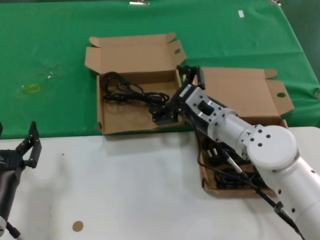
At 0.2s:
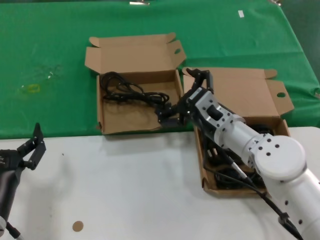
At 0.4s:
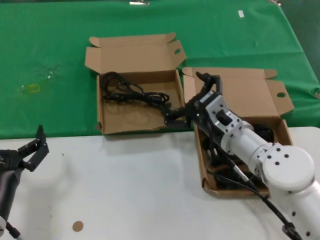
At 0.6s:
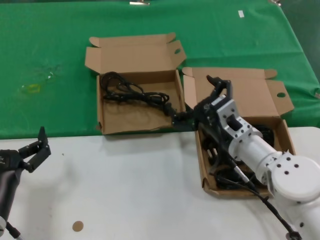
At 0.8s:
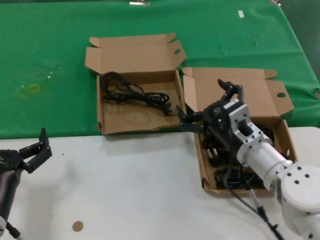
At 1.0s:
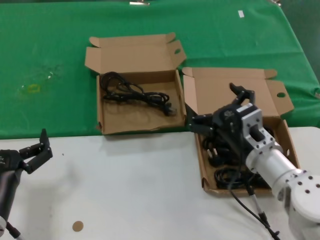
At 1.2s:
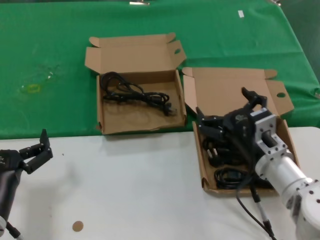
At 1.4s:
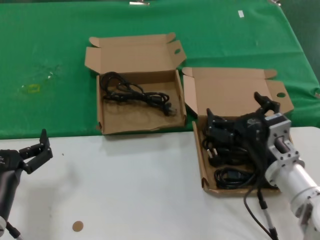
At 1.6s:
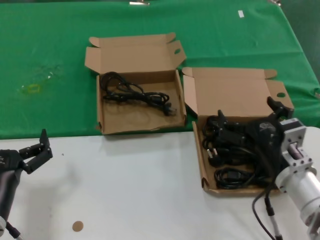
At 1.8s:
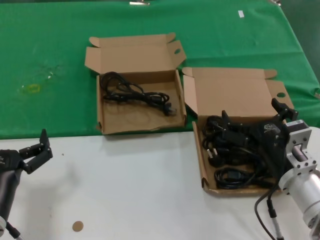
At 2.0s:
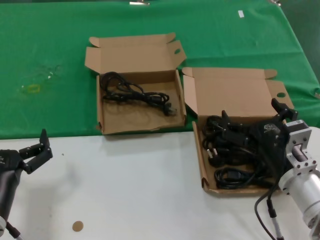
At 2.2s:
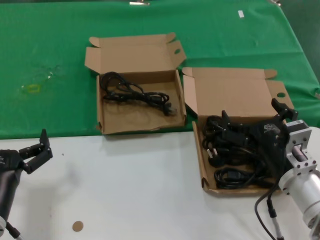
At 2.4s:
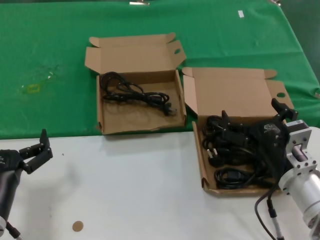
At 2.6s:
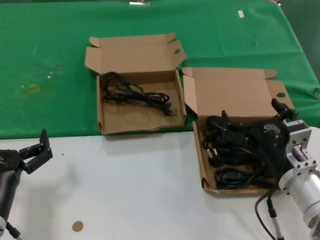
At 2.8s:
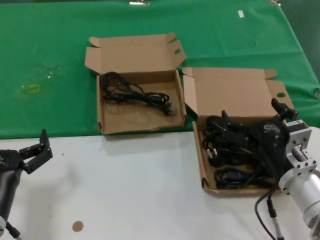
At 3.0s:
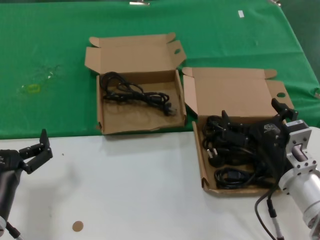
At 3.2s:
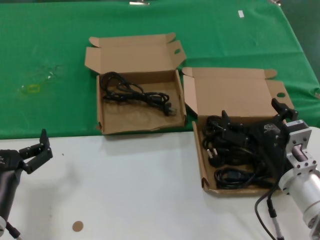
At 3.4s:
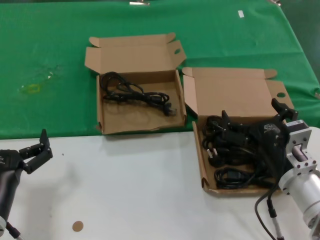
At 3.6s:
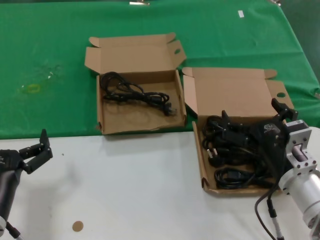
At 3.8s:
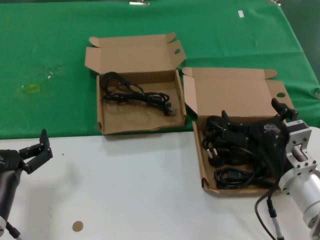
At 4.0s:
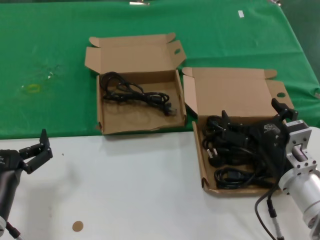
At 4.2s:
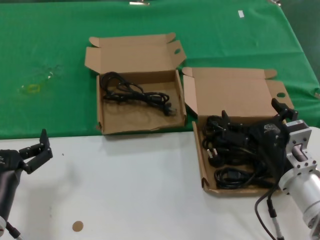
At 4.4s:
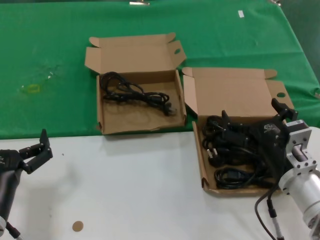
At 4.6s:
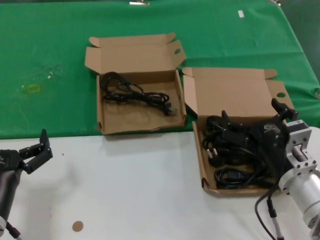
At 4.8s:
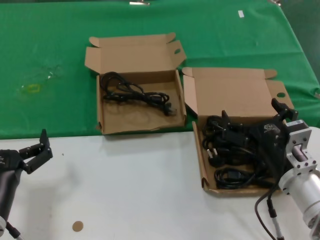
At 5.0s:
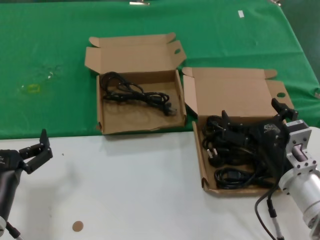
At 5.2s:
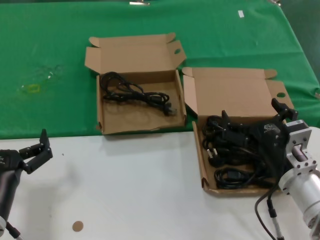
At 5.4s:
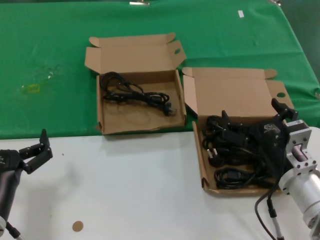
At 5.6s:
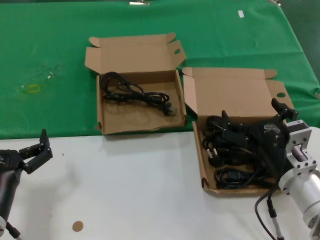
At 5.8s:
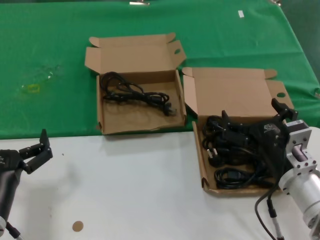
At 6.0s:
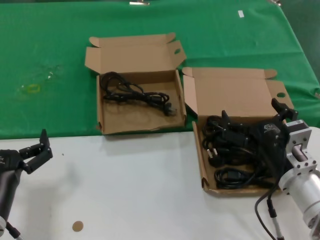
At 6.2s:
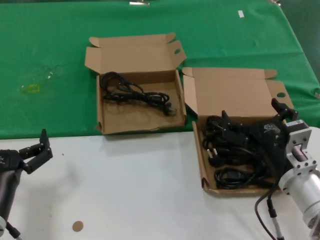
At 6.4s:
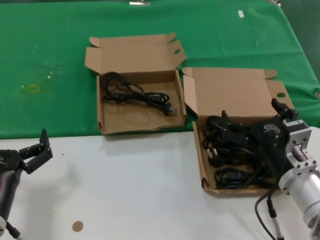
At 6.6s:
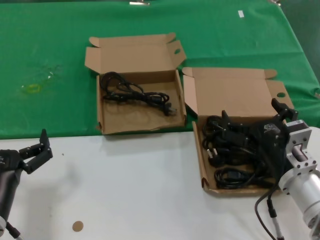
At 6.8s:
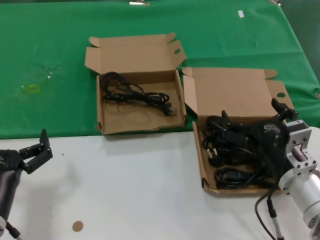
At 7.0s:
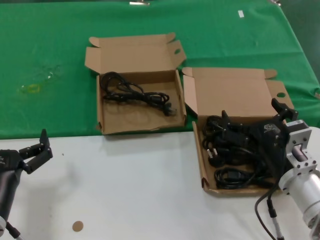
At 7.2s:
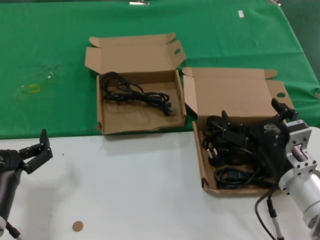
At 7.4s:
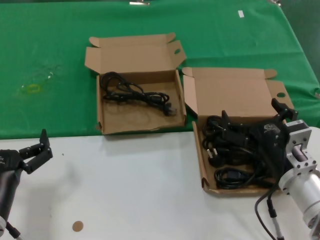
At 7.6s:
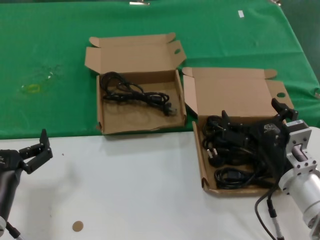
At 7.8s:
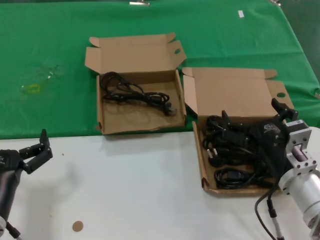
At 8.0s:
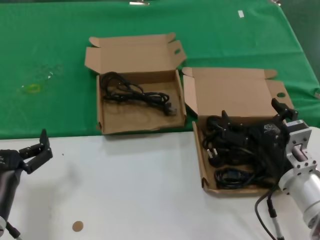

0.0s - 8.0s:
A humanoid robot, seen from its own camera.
Task of the whole recording: take the parts from the box containing them and put them into an empty box.
0.0s - 1.6s: The right hand goes approximately 15 cm backward and to the right.
1.6s - 8.0s: The two hands keep their place.

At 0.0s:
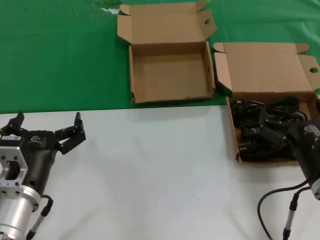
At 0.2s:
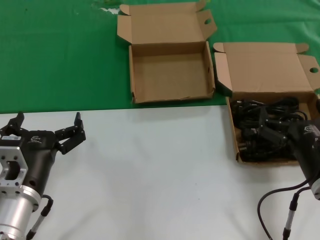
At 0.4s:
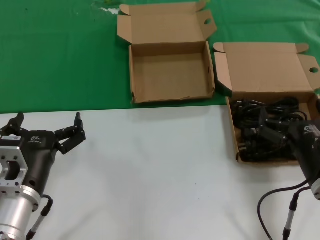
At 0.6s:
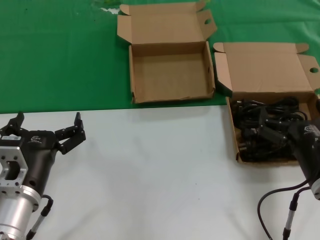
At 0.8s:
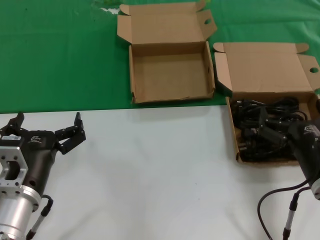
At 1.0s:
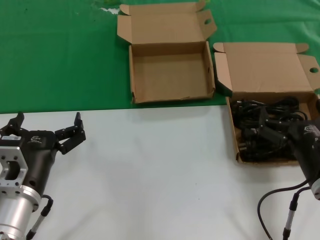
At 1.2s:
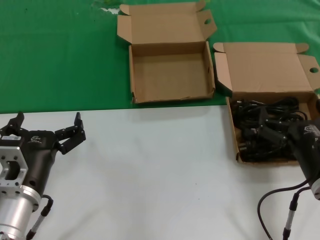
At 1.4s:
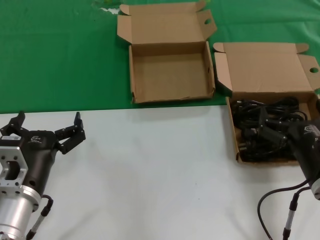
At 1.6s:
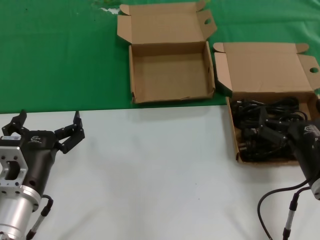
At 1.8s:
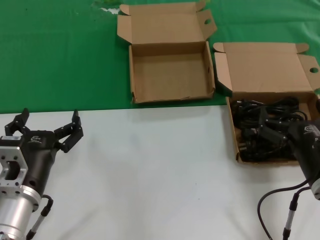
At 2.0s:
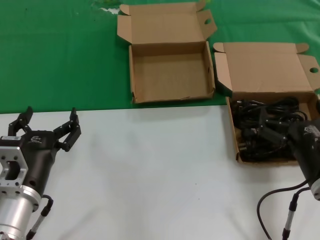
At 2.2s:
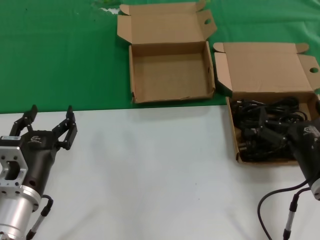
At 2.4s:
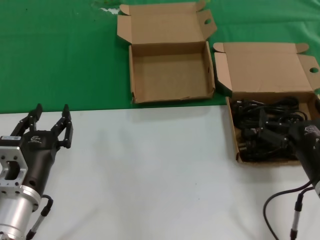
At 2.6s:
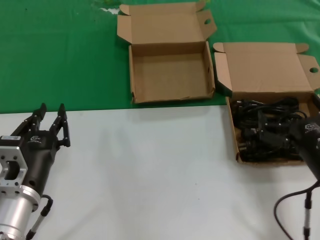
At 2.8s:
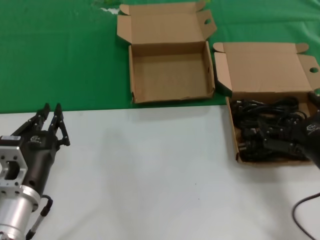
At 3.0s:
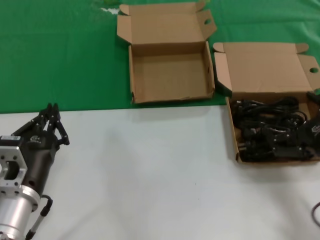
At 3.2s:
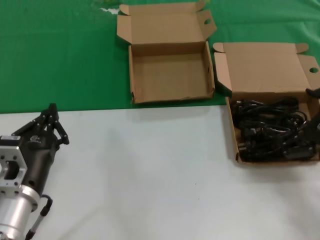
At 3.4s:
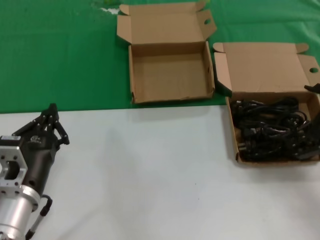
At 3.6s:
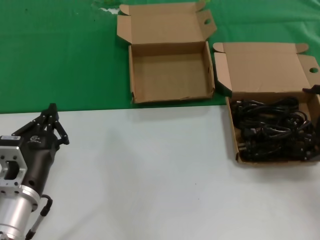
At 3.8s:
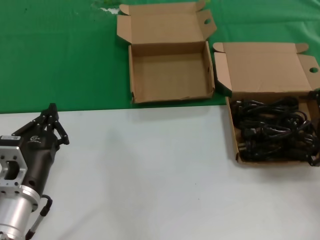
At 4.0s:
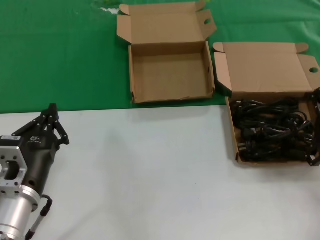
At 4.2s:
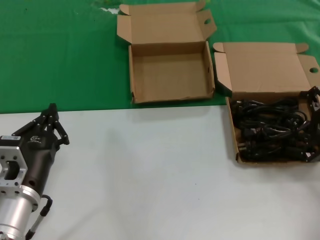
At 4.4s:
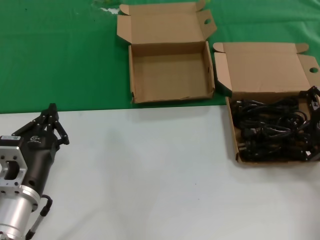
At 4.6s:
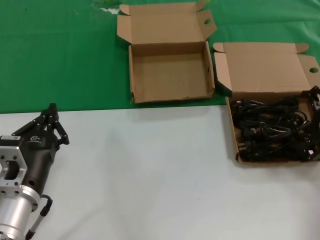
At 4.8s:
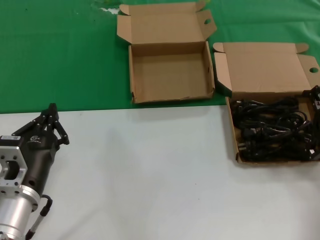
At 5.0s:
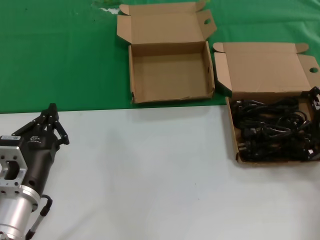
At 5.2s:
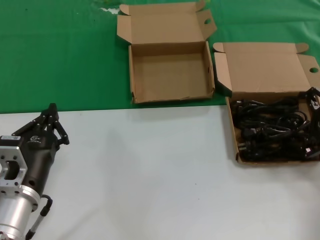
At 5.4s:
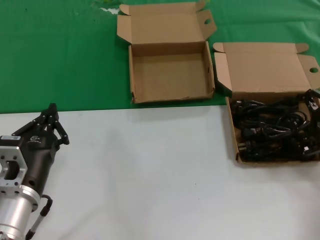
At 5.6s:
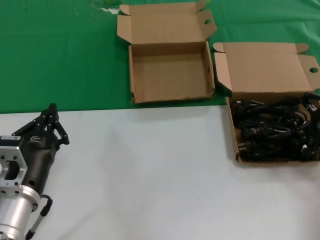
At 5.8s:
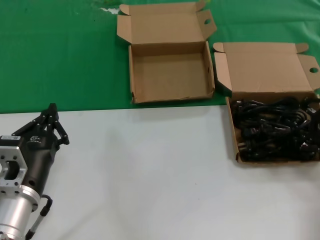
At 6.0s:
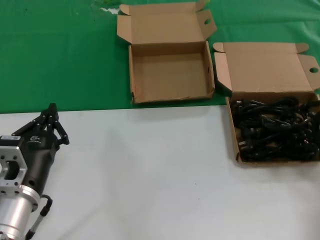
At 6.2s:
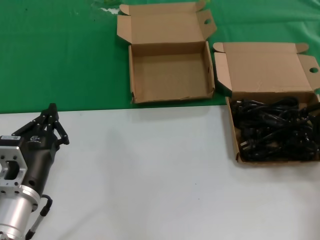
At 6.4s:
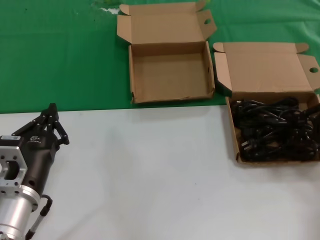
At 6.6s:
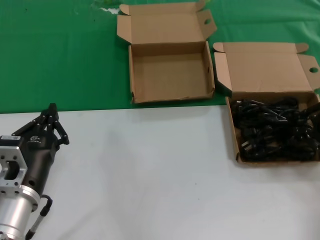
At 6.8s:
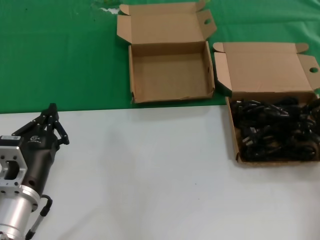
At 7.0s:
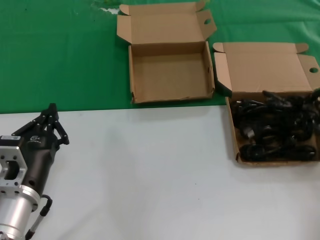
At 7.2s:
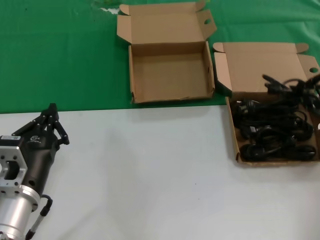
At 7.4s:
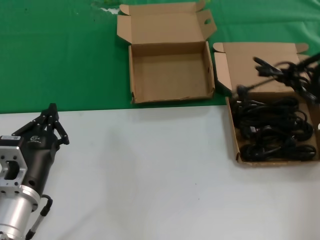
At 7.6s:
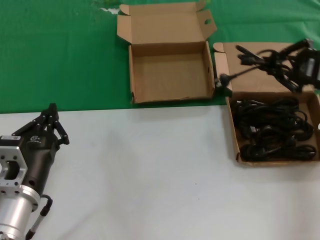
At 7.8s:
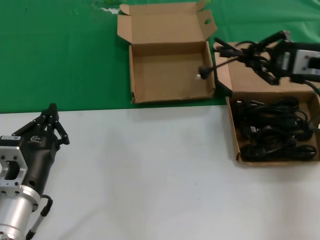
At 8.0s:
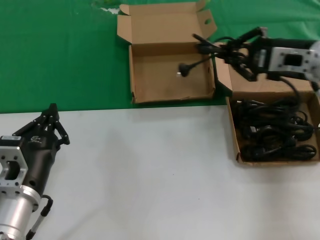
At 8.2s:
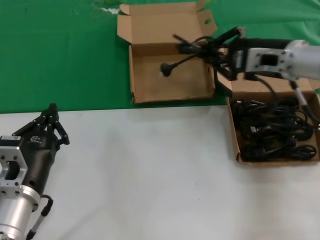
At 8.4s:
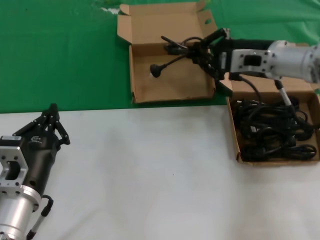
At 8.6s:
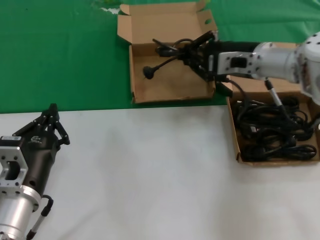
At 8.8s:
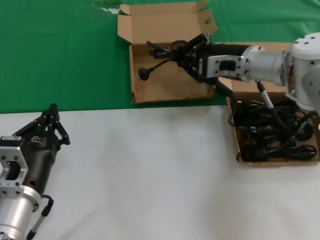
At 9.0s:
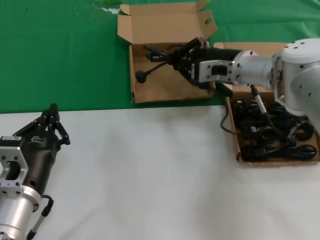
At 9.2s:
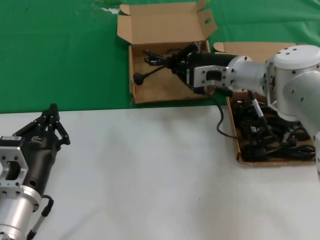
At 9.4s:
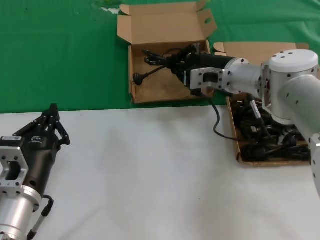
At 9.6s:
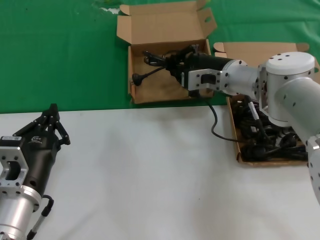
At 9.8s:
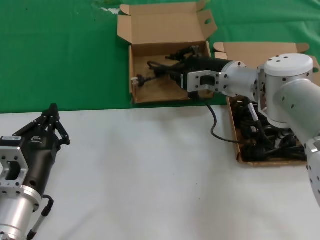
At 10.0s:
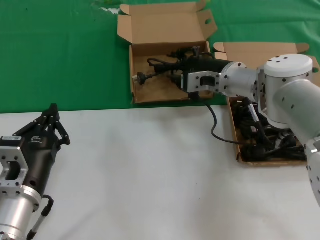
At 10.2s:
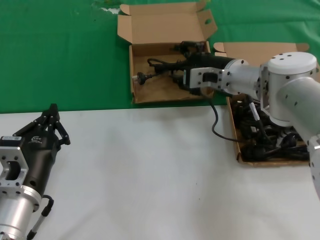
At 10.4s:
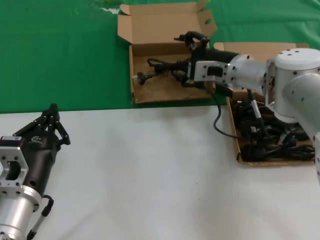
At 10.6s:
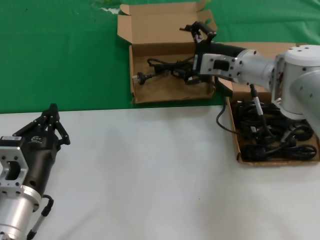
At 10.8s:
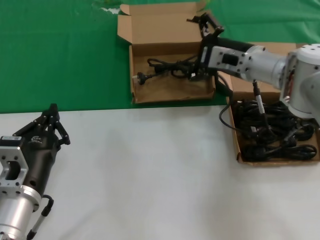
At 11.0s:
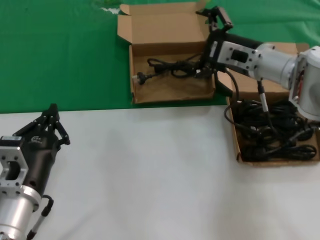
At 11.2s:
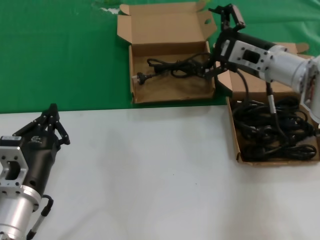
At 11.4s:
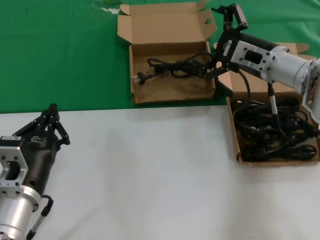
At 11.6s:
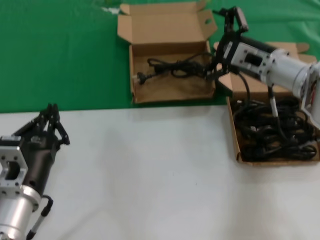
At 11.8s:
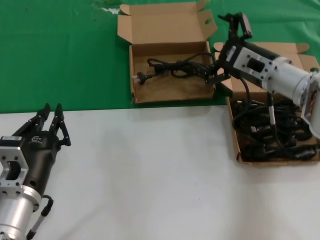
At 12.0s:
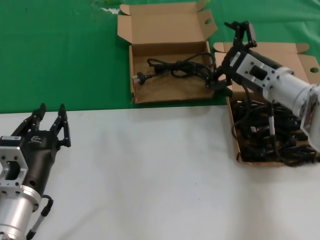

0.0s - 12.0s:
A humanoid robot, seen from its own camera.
Task of the whole recording: take the parts from the box containing them and put them into an empty box.
Step, 0.0s - 6.2s: Grasp the data cable.
Step, 6.4s - 10.0s: Place the data cable in the another box.
0.0s - 1.6s: The two hands keep their place.
1.6s - 3.0s: The right hand goes about 10 cm to the right.
3.0s - 4.4s: The right hand shifts some 15 cm forward, to the right and upward.
6.0s - 7.6s: The right hand travels upward and to the left by about 10 cm.
7.6s - 9.0s: The right hand goes about 20 cm to the left and forward.
9.0s - 10.4s: There are only small adjustments of the hands.
10.4s - 12.0s: The right hand goes approximately 5 cm to the right.

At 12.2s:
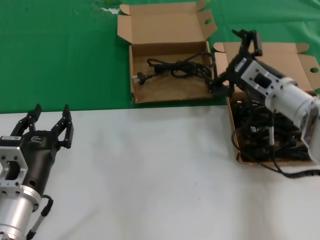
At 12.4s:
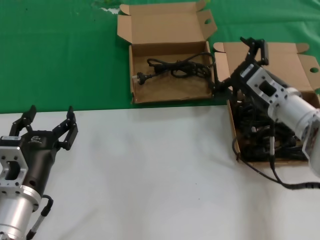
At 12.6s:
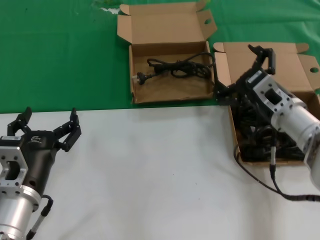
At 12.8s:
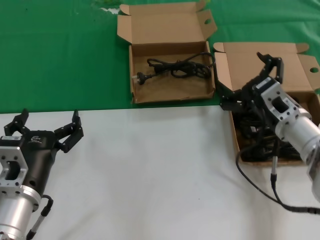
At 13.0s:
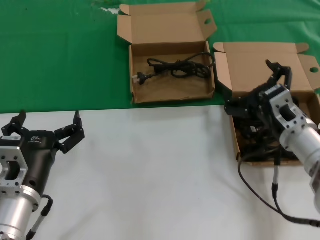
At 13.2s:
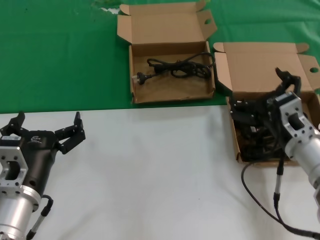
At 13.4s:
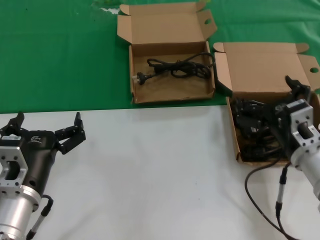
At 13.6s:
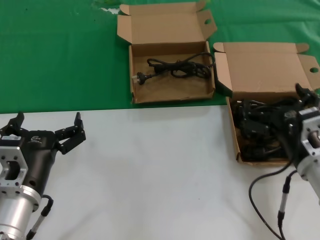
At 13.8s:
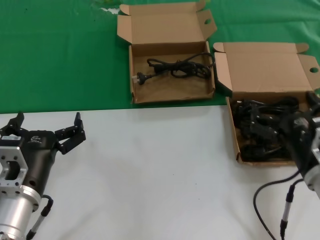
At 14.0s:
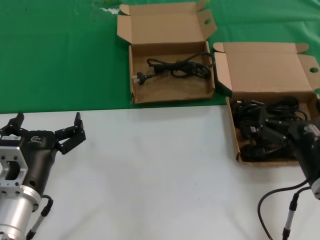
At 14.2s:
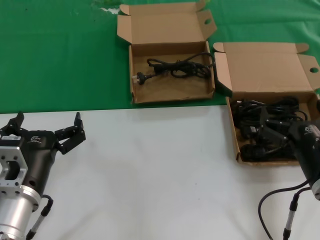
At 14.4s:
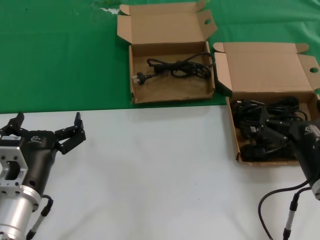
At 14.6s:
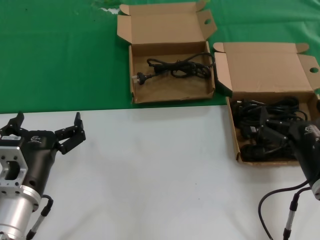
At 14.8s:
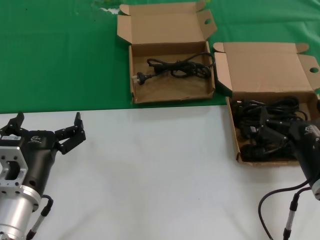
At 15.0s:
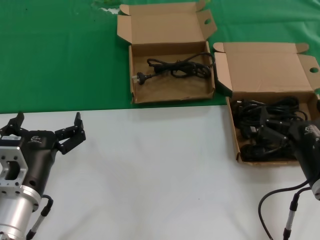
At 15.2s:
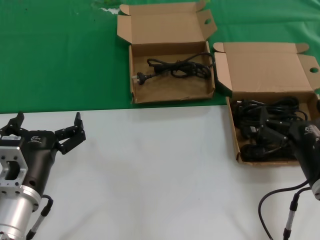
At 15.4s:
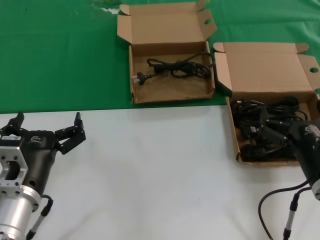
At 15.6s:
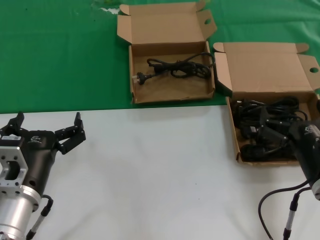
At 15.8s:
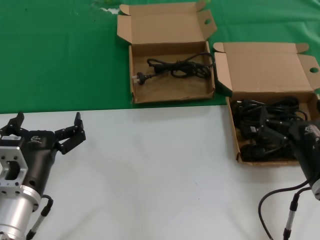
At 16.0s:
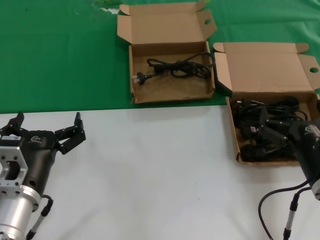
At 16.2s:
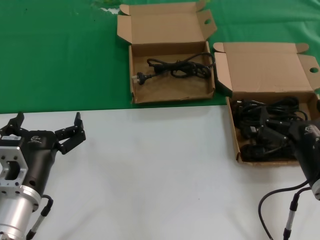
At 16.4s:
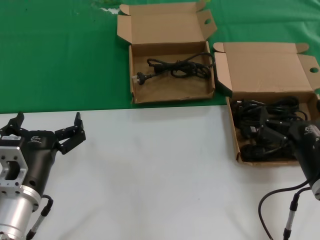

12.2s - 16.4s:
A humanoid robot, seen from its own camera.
Task of the whole recording: take the parts from the box containing them and put them into an empty box.
12.2s - 13.6s: The right hand goes roughly 15 cm backward and downward.
13.6s - 15.0s: The right hand is displaced backward by approximately 5 cm.
15.0s - 16.4s: The two hands keep their place.
